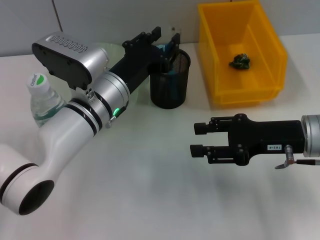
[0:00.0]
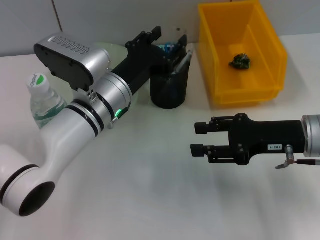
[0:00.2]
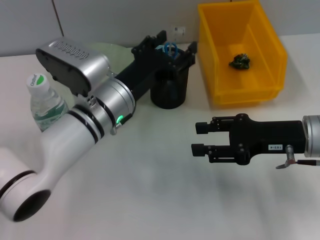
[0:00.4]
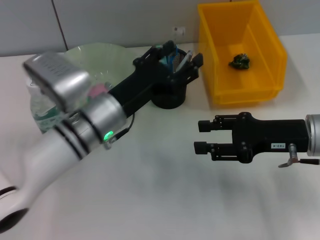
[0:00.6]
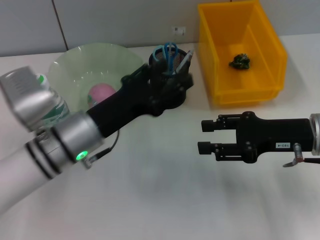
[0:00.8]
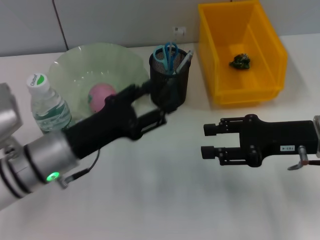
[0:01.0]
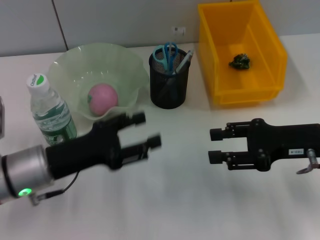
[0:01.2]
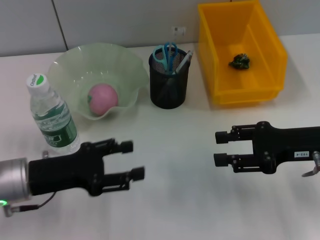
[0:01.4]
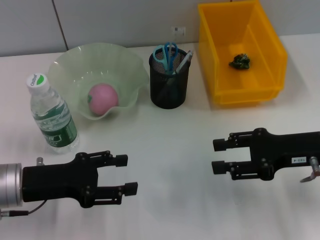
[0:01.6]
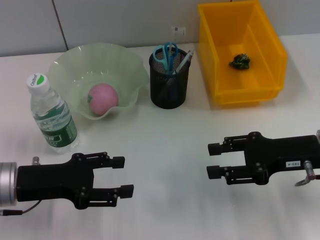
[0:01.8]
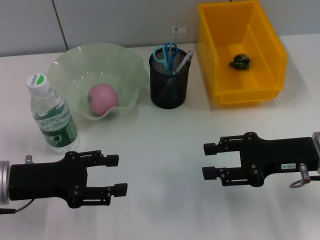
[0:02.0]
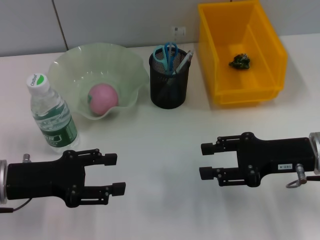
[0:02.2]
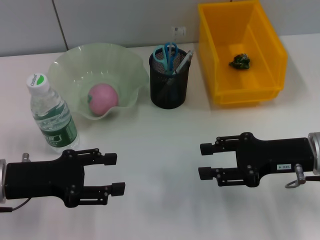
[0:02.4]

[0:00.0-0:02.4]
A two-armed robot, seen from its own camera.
0.0 to 1.2 s: The left gripper goes about 15 cm to the left and backward, and opens its fingers.
1.2 to 2.4 s: The left gripper changes place by about 5 cm.

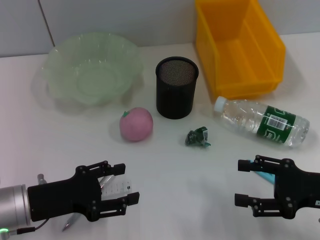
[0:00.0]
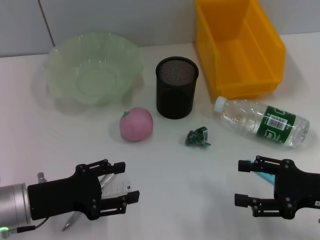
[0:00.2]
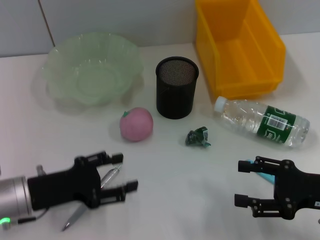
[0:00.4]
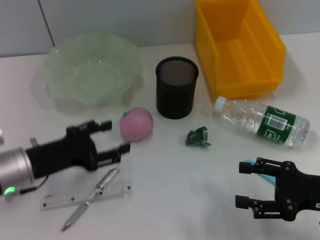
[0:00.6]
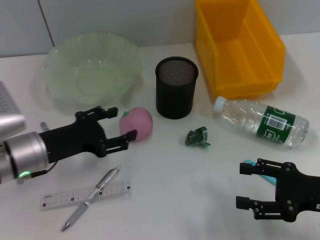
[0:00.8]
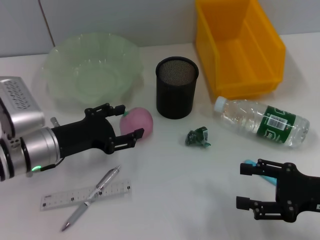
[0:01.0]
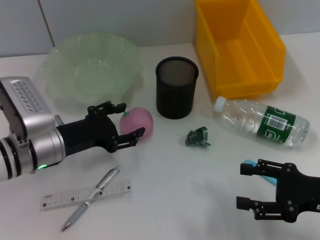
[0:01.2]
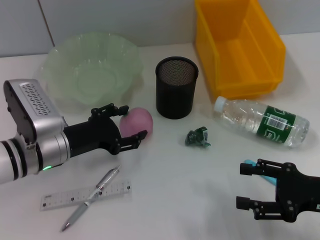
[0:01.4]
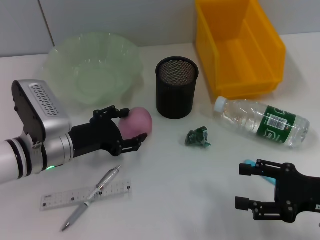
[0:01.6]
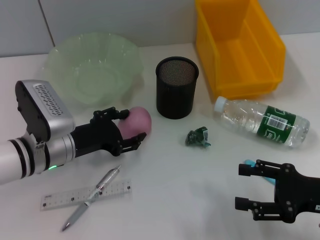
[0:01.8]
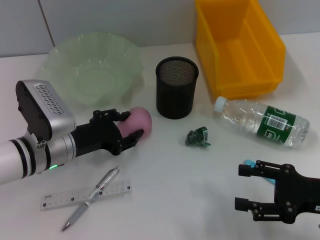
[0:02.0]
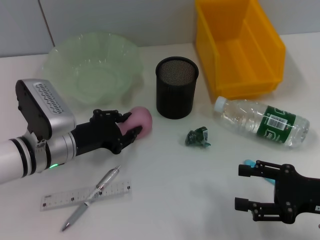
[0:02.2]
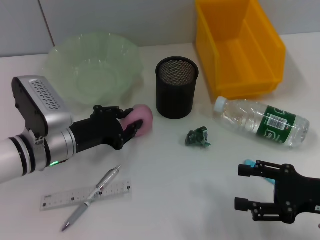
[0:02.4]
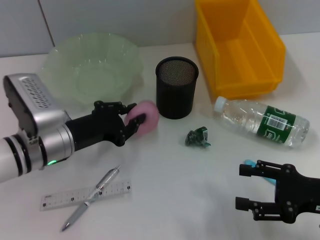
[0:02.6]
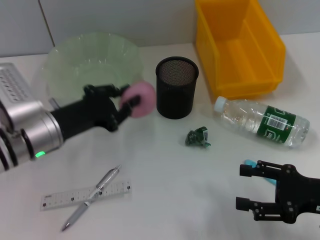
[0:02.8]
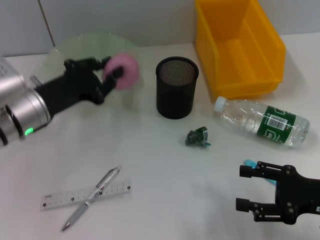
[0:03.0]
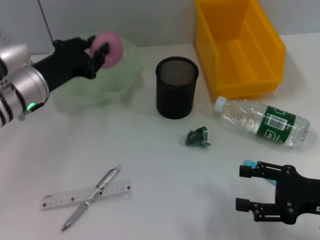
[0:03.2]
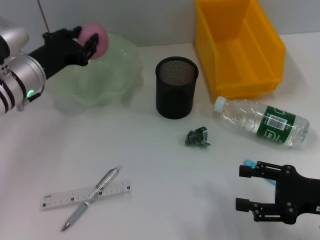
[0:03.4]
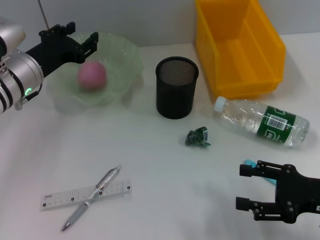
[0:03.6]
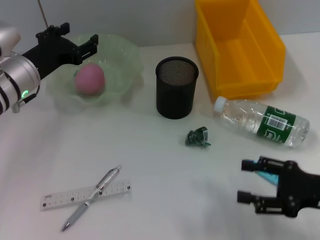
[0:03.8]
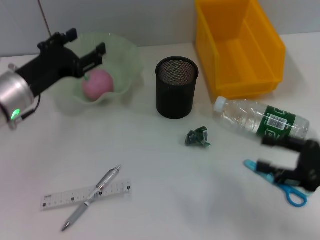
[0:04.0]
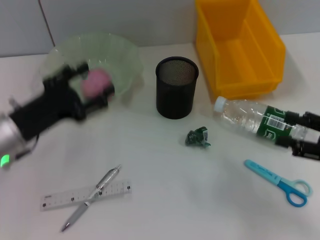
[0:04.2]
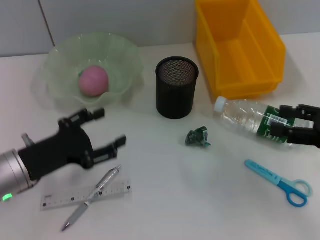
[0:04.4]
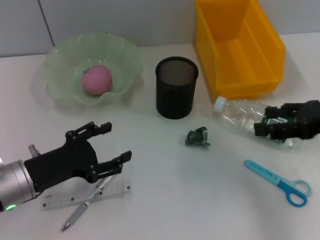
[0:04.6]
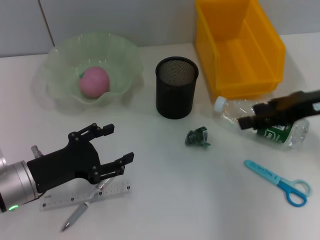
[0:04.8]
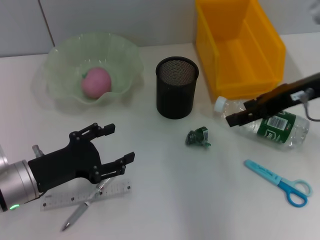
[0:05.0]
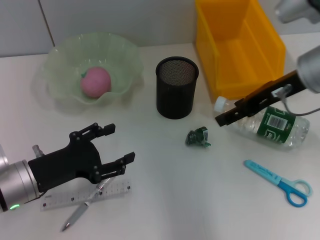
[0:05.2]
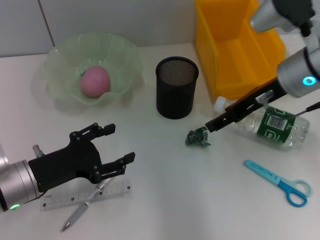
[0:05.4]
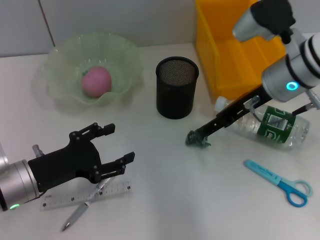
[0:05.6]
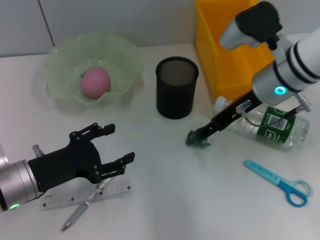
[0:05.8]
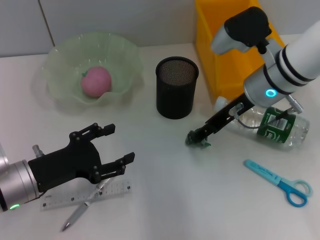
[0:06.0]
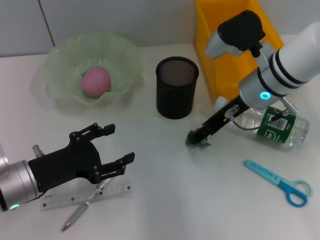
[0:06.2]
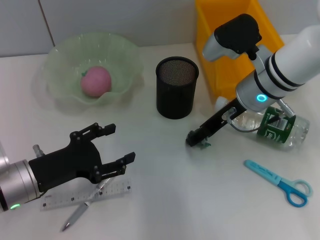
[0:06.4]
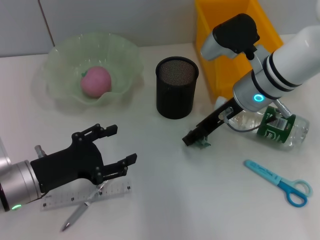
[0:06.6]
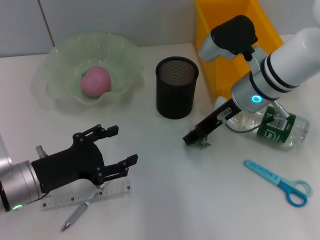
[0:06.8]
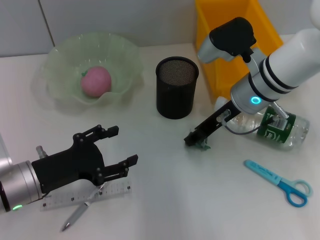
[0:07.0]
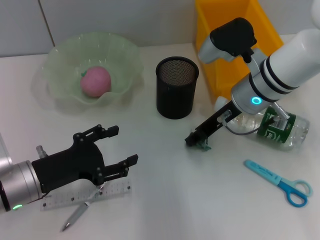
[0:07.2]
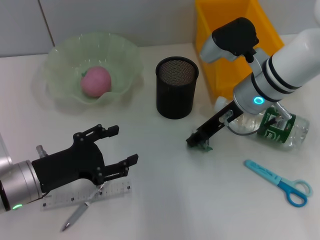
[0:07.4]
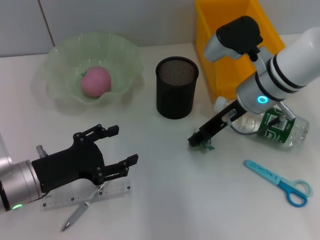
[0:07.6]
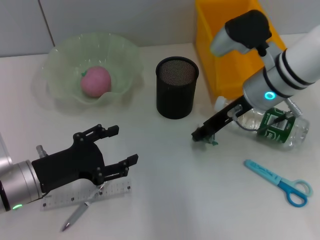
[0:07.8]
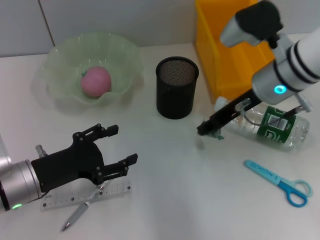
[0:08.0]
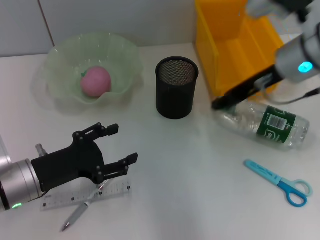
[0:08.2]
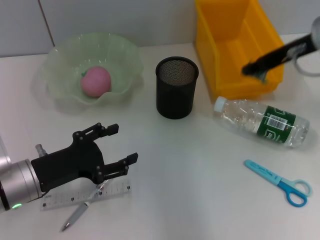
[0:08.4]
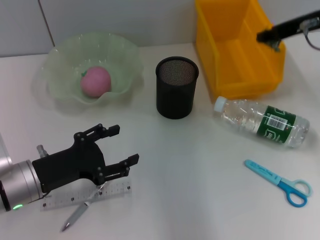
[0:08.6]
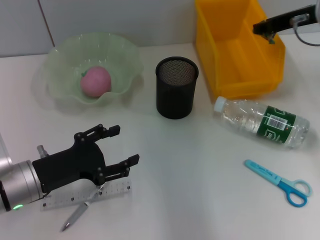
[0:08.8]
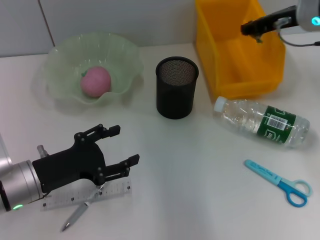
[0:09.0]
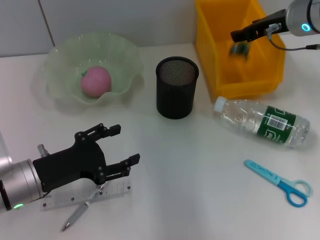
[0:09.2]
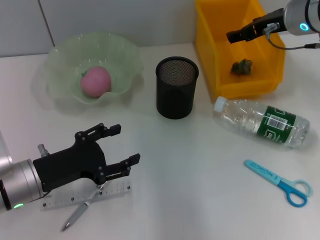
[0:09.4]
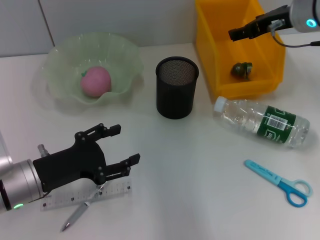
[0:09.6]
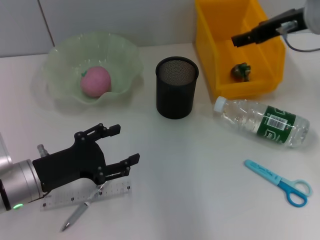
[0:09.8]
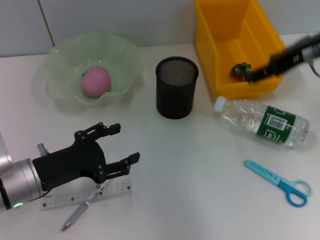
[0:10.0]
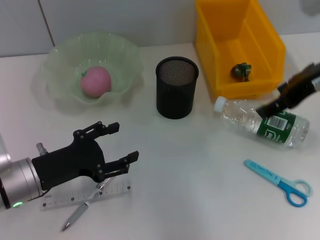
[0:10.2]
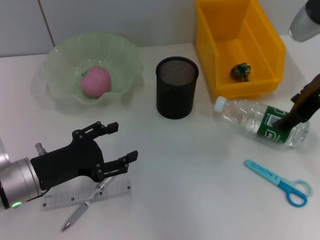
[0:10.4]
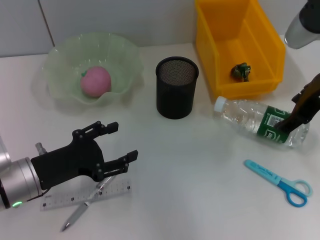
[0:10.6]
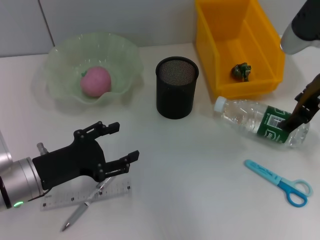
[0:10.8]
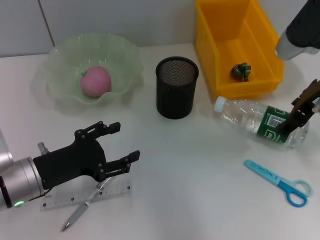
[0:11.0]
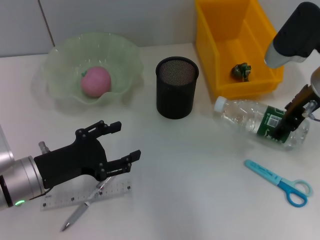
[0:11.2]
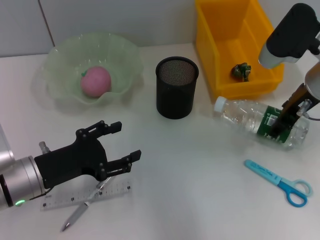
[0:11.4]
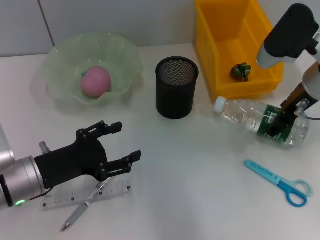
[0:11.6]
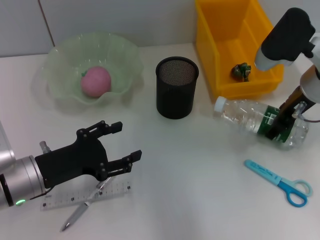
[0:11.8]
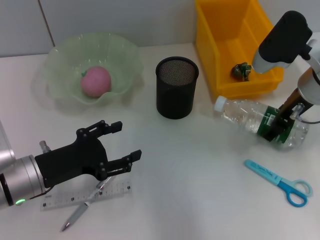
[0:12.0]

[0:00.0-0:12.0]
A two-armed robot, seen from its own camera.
Step, 0.0 to 2.2 s: Grab the peach with the left hand.
Step, 2.4 to 3.8 s: Place the peach into the fruit bowl with the left hand.
Step, 4.0 to 6.6 s: Grab the plastic with the right hand.
Step, 7.0 to 9.6 s: Place the plastic into the trash can with the right hand.
0.0 to 1.6 s: The left gripper moves forward and to the right, roughly 10 cm.
1.6 to 3.0 s: The left gripper moves upward, roughly 5 cm, and closes its fingers.
3.0 to 4.4 s: The left gripper is displaced backward by about 5 cm, and opens up. Meanwhile the right gripper travels upward by roughly 5 cm.
4.4 to 6.0 s: The right gripper heads to the left and forward, covering roughly 20 cm.
6.0 to 7.6 s: There are only small adjustments of the grippers.
7.6 to 9.0 s: The right gripper goes about 10 cm to the right, upward and forward.
9.0 to 10.4 s: The right gripper goes approximately 10 cm backward, and opens up.
10.4 to 12.0 s: The right gripper moves downward, some 5 cm.

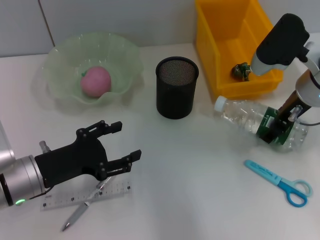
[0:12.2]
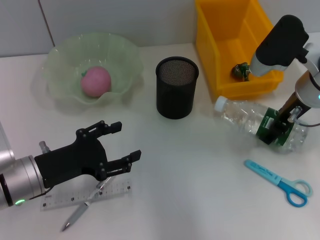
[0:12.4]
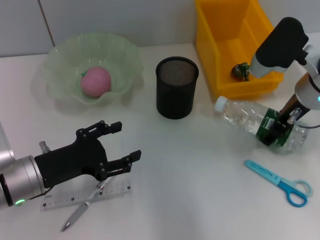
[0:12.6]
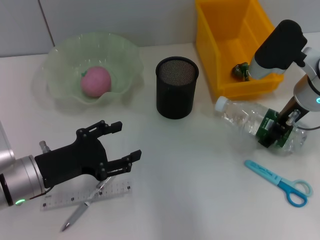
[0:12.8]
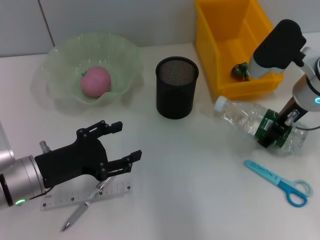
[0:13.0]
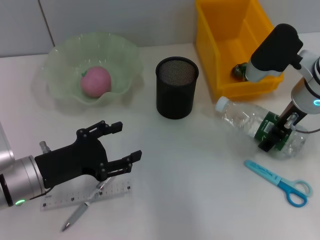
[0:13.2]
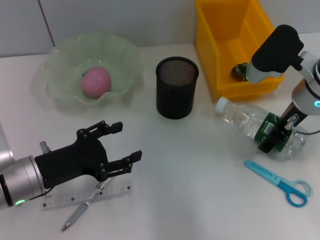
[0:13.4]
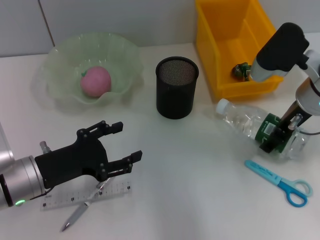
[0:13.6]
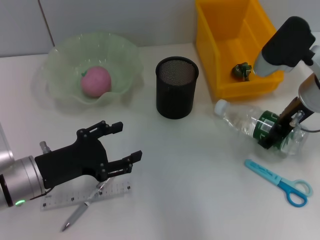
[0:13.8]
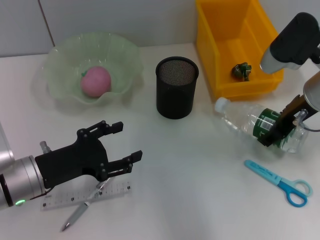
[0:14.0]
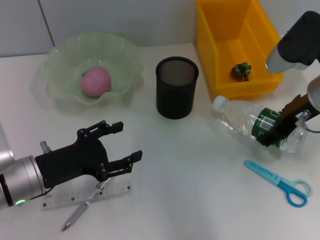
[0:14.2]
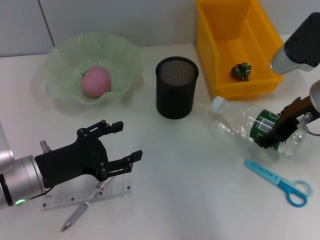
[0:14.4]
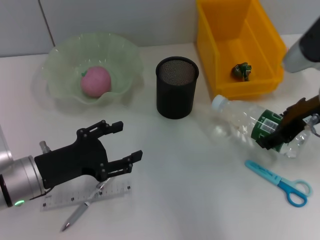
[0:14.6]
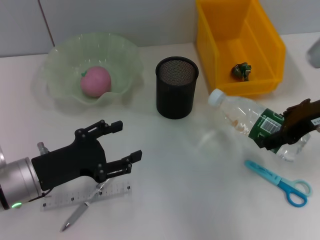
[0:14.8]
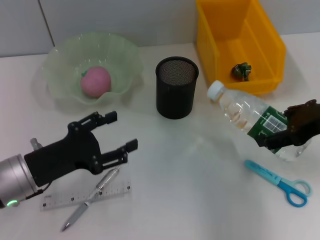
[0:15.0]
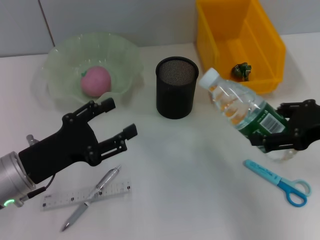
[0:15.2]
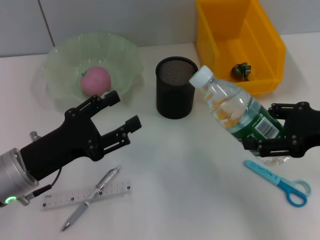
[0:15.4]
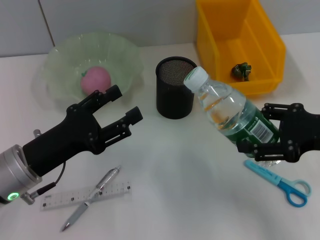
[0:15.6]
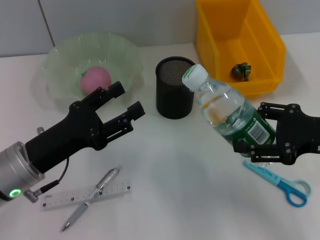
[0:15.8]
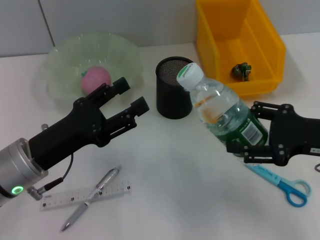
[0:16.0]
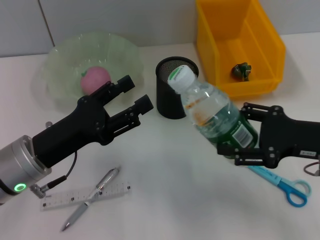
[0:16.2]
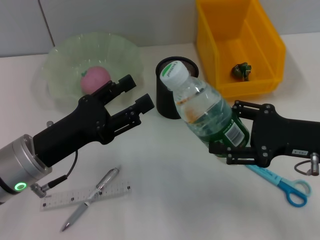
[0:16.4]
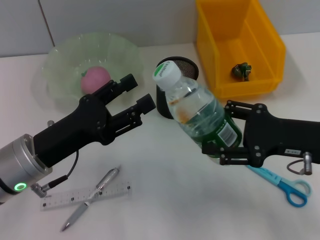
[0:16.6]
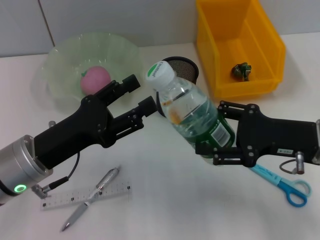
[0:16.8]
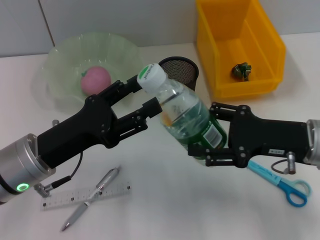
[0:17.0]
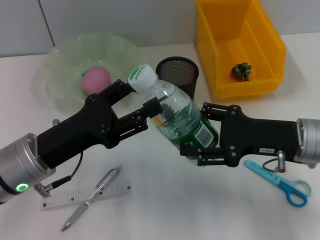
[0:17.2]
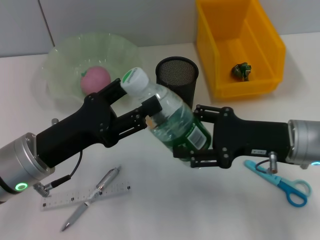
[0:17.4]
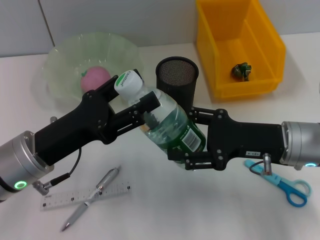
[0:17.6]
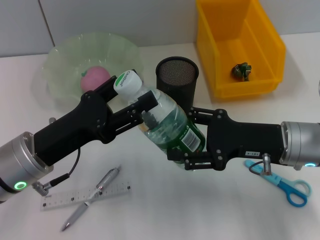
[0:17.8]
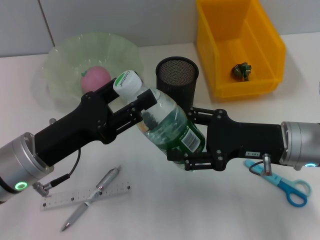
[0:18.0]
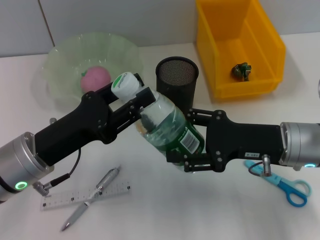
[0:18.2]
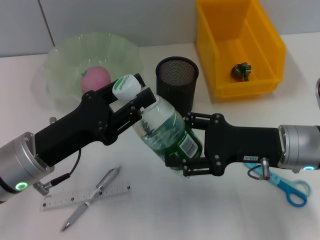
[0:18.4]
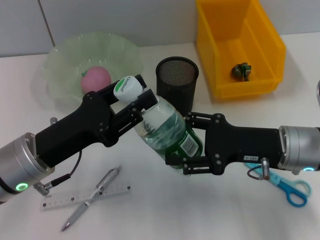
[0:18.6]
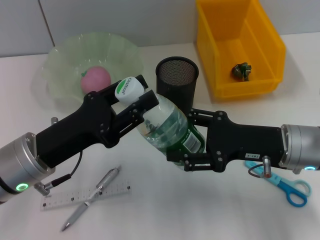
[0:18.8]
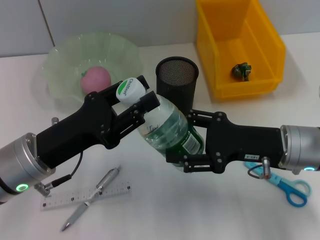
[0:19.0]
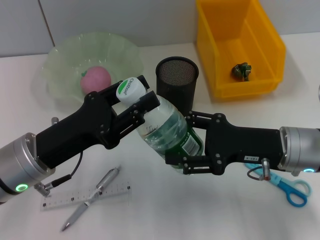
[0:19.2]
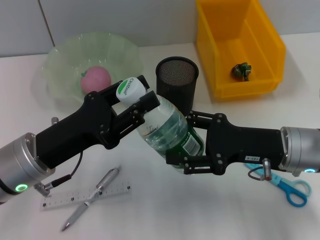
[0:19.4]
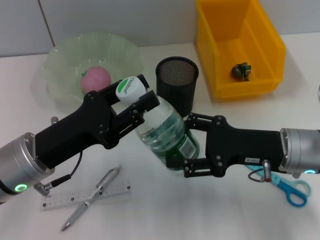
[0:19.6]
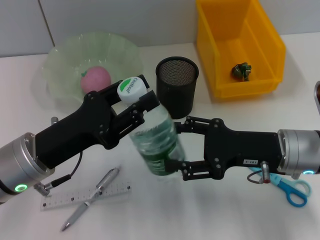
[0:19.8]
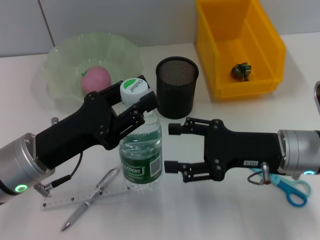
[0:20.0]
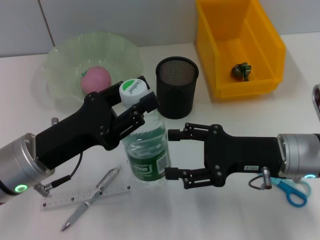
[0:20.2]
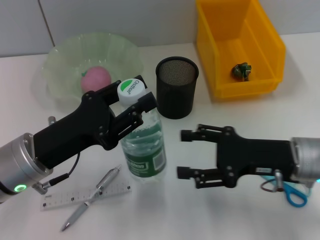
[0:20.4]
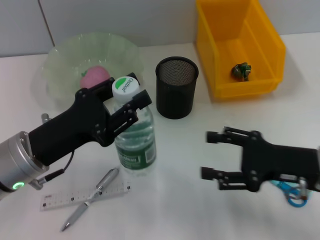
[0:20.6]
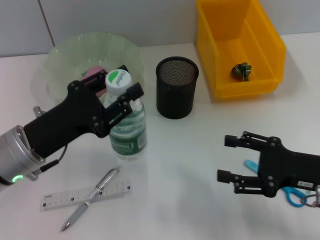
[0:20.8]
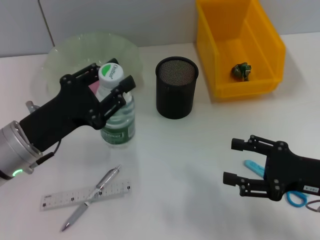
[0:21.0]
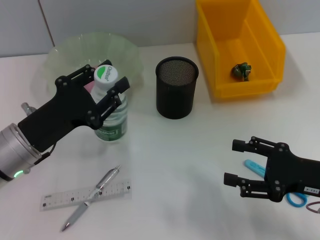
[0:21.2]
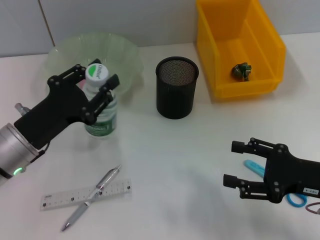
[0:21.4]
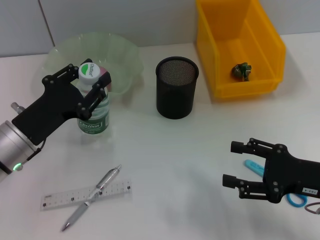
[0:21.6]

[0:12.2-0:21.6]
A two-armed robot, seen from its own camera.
Step, 13.2 to 20.0 s: Pass the water bottle from the right hand to the left hand.
12.2 to 13.8 s: The grippers move only a little.
13.8 to 15.4 s: The right gripper goes some 10 cm backward and to the right.
15.4 to 17.0 s: The right gripper moves downward and to the left, about 10 cm.
17.0 to 18.4 s: The left gripper closes up.
18.4 to 20.0 s: Both grippers stay about where they are.
20.0 to 21.6 s: The left gripper changes place by approximately 5 cm, while the right gripper goes approximately 10 cm to the right and backward.
